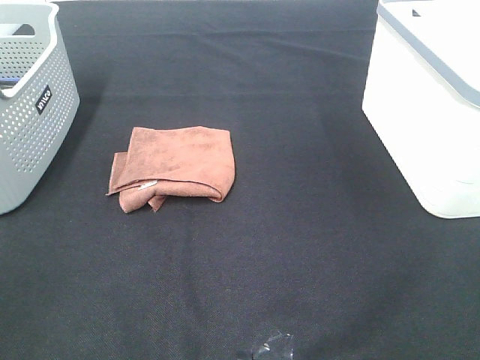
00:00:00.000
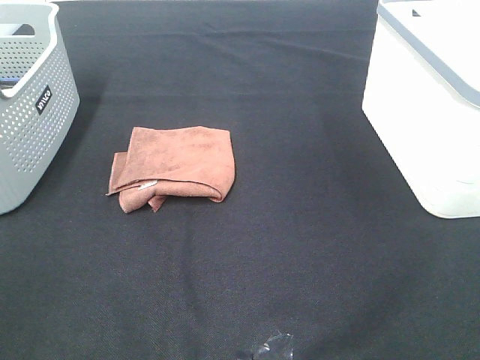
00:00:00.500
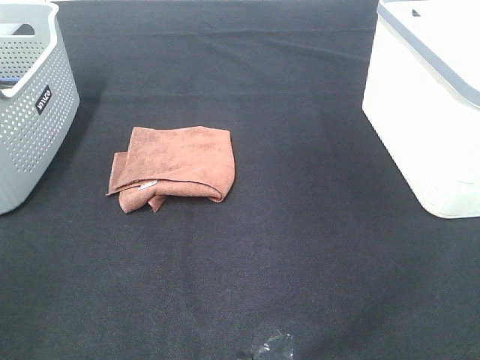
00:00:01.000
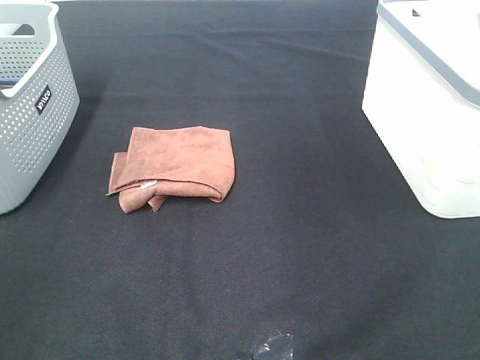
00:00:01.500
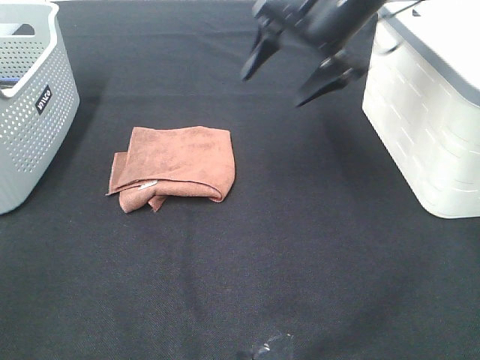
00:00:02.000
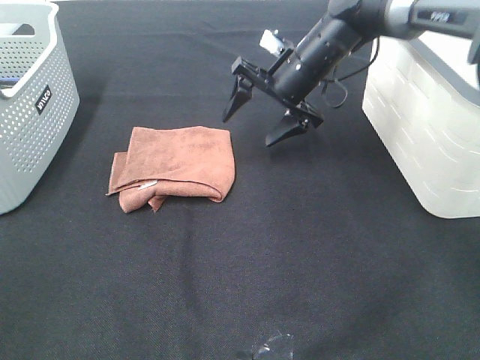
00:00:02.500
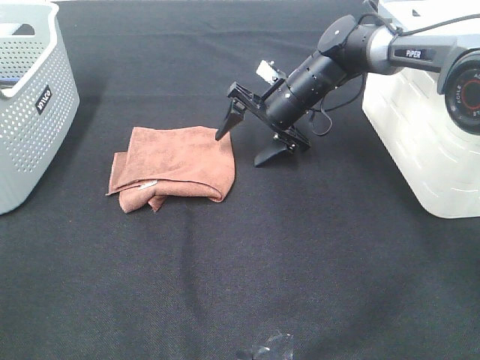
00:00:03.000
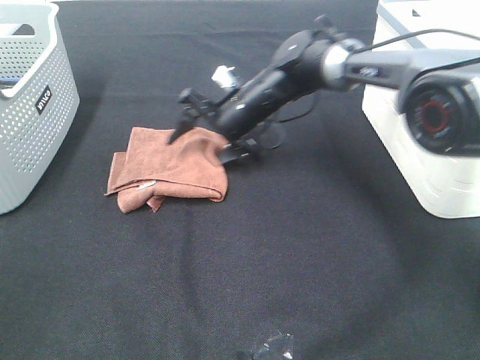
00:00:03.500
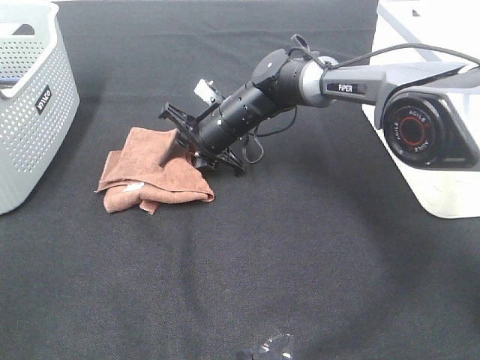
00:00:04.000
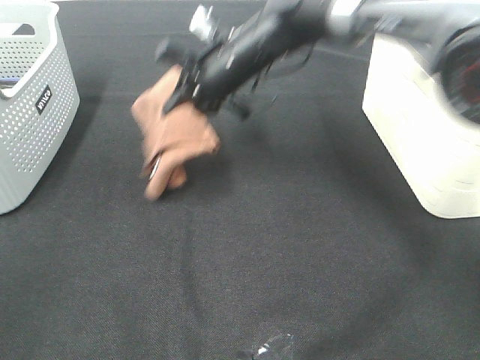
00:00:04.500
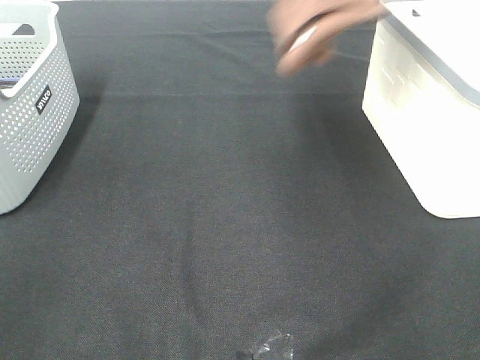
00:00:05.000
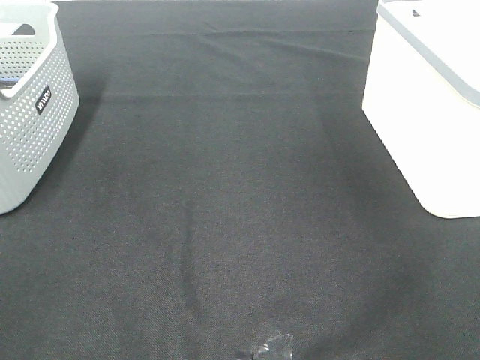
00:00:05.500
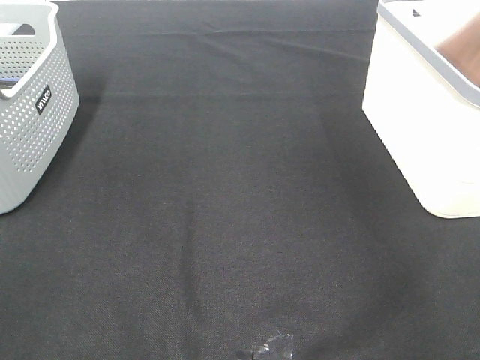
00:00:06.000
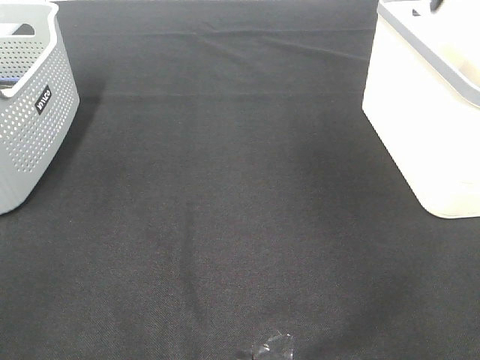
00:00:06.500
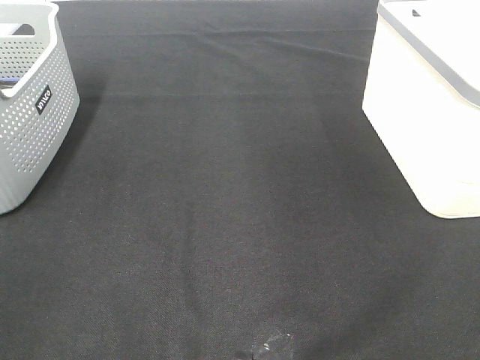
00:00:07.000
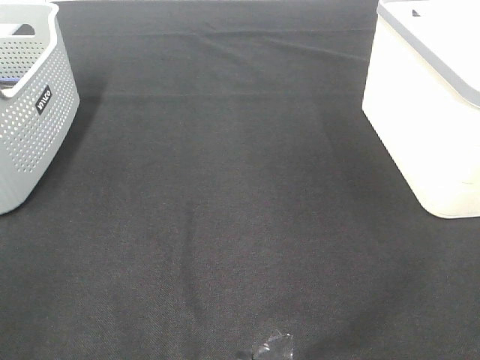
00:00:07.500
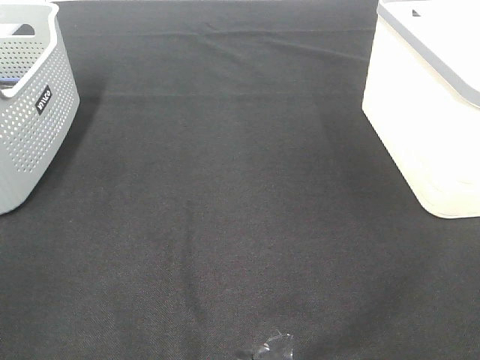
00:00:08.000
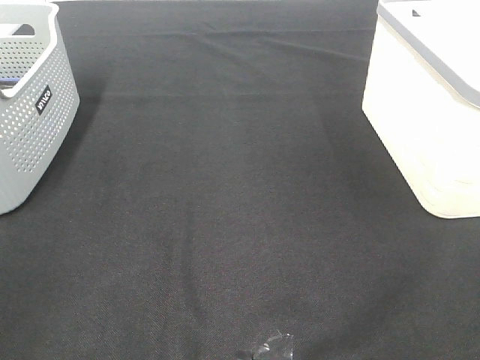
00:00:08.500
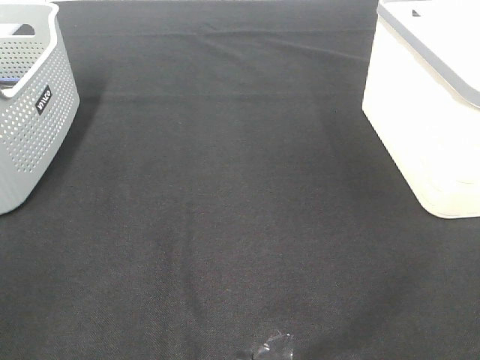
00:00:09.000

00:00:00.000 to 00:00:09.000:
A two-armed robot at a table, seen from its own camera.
Step, 00:00:00.000 to 00:00:04.000: Right hand: grab the folded brown towel.
Step, 00:00:04.500 to 00:00:06.000: Right hand: place the brown towel in right basket.
00:00:00.000 to 00:00:02.000: The right gripper moves forward and to the left, approximately 50 cm.
00:00:02.000 to 00:00:04.500: The right gripper heads to the left, covering approximately 10 cm, moves approximately 20 cm downward and comes back, and closes.
00:00:04.500 to 00:00:07.000: The right gripper is displaced to the right, upward and backward by approximately 35 cm, and opens its fingers.

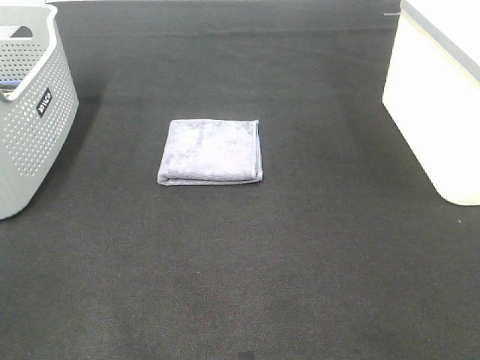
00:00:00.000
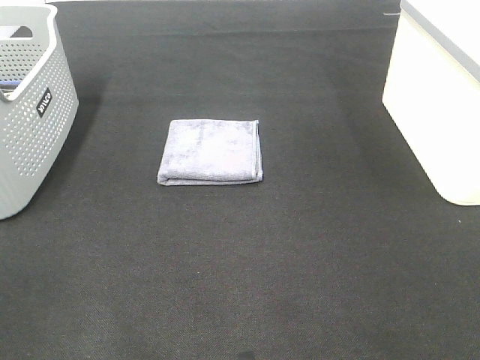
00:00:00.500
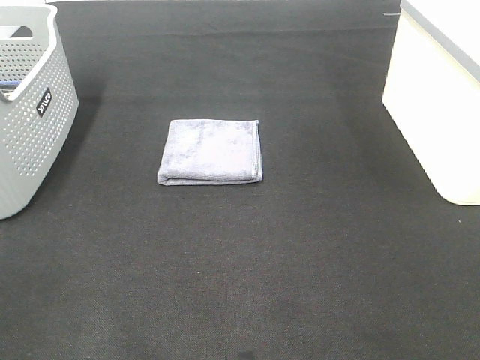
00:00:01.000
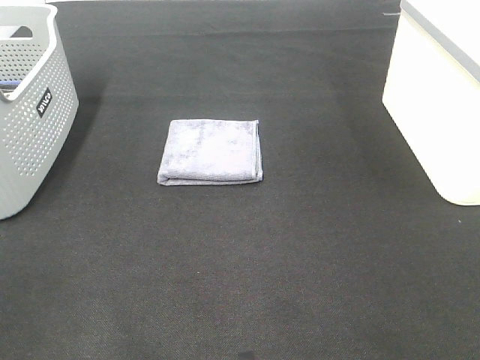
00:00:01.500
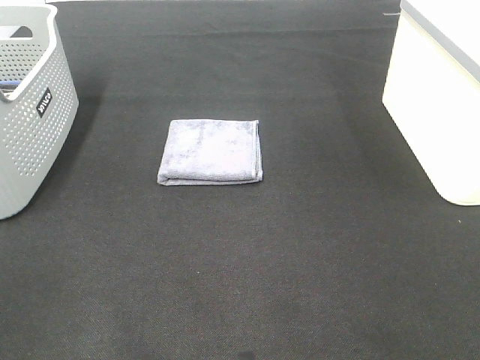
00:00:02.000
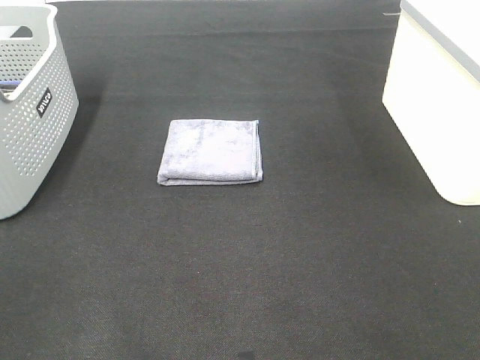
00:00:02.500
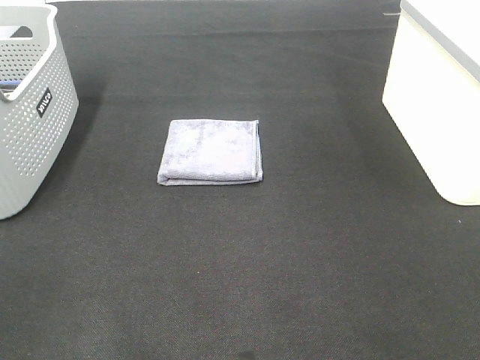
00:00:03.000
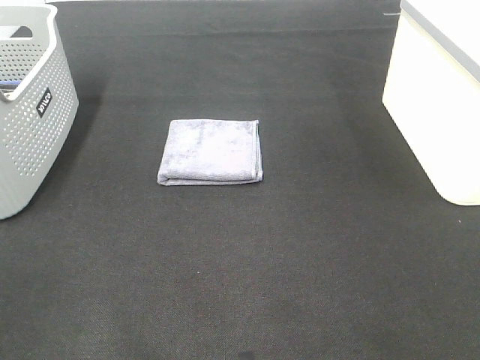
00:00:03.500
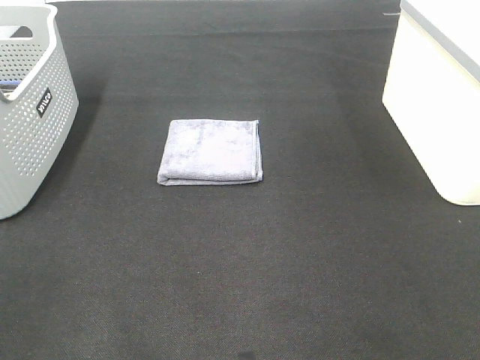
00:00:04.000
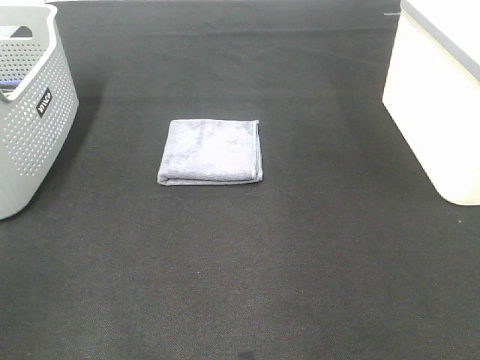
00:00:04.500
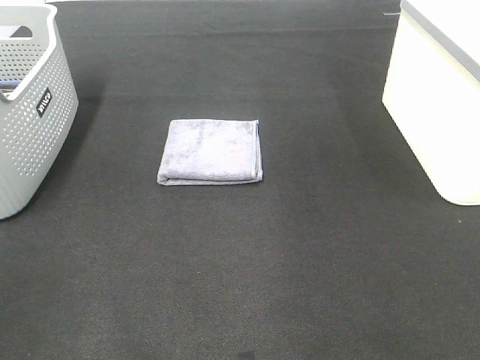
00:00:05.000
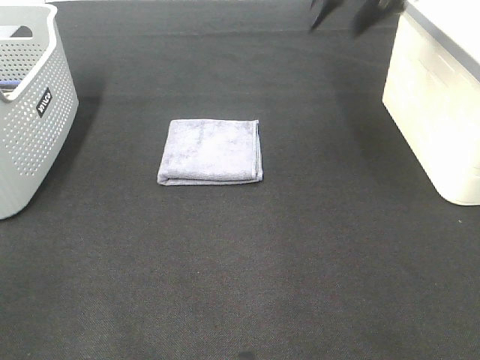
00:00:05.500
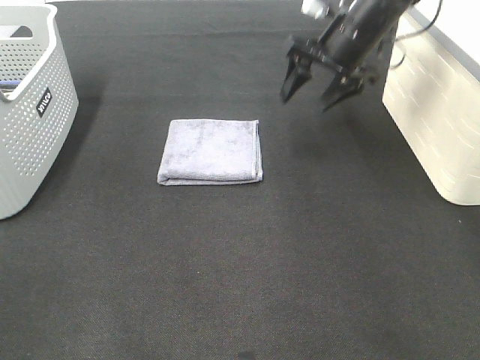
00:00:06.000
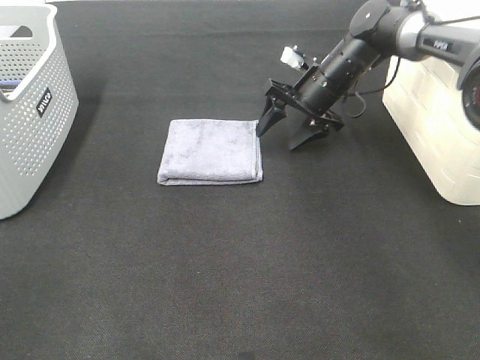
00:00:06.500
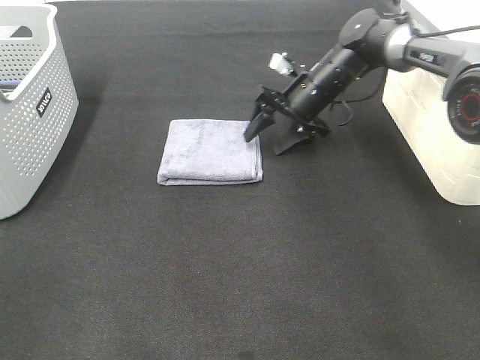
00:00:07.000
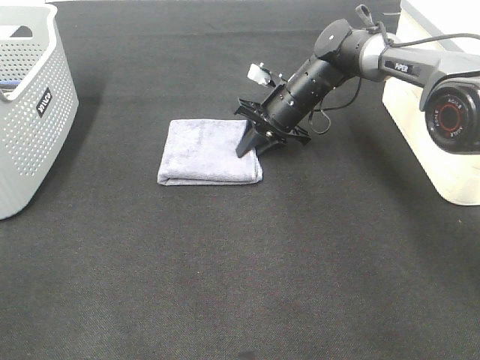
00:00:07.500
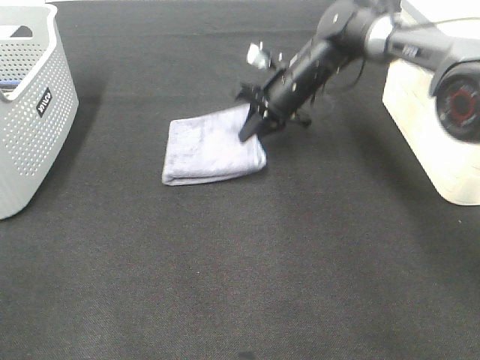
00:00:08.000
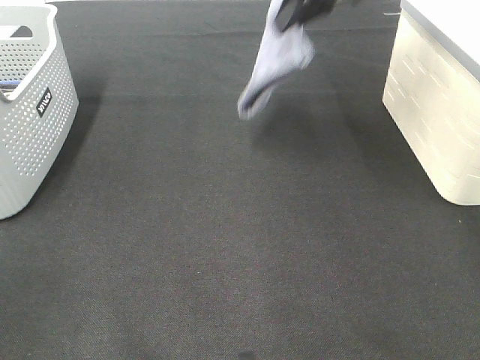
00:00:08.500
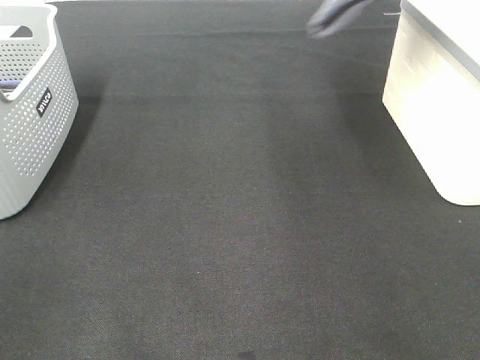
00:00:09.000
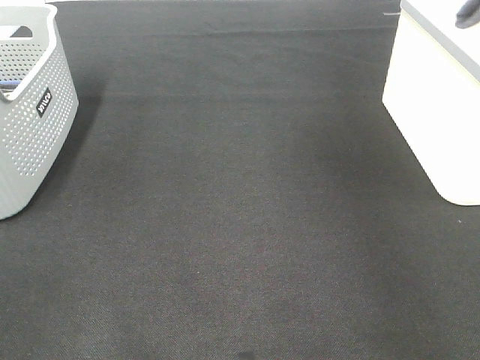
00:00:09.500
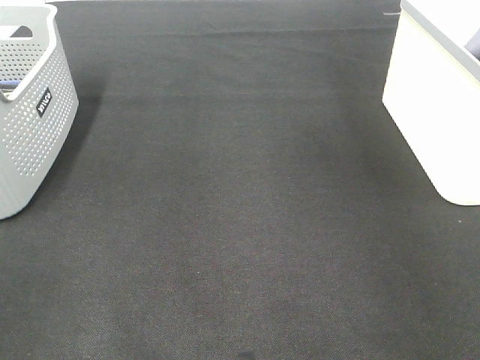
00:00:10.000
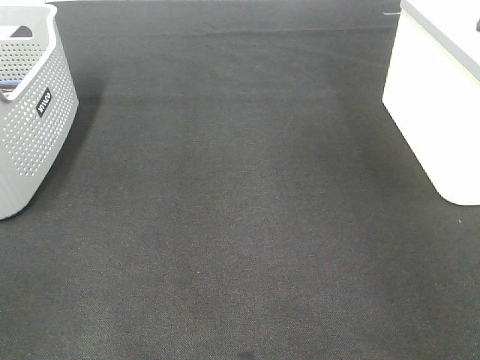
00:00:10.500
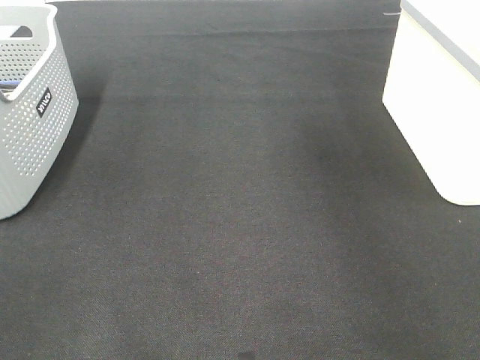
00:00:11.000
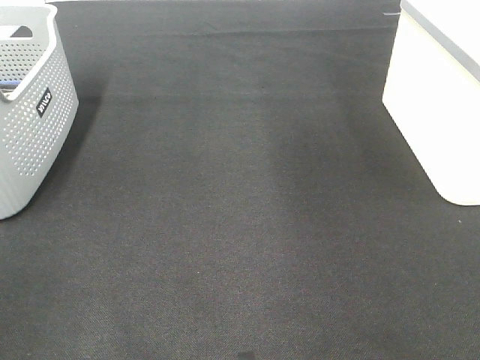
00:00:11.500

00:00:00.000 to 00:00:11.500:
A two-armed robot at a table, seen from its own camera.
Step, 00:00:00.000 to 00:00:07.500: Right hand: grab the folded grey towel.
Step, 00:00:08.000 to 00:00:10.000: Right hand: place the grey towel in right basket.
00:00:00.000 to 00:00:02.000: Neither gripper changes place.
00:00:04.000 to 00:00:06.000: The right gripper is displaced forward by about 40 cm.
00:00:06.000 to 00:00:07.500: The right gripper goes roughly 15 cm downward and to the left, and closes up.
00:00:07.500 to 00:00:09.500: The right gripper shifts roughly 40 cm upward and to the right.

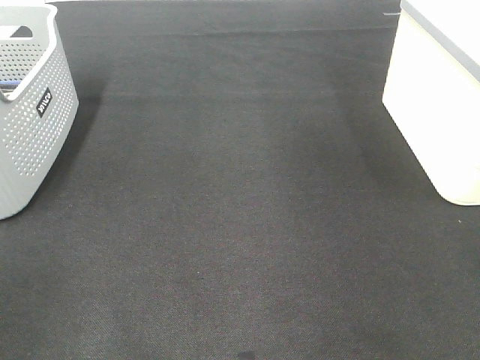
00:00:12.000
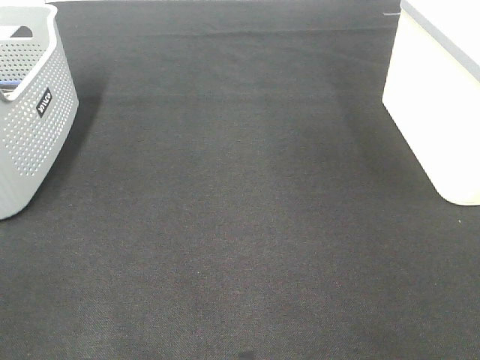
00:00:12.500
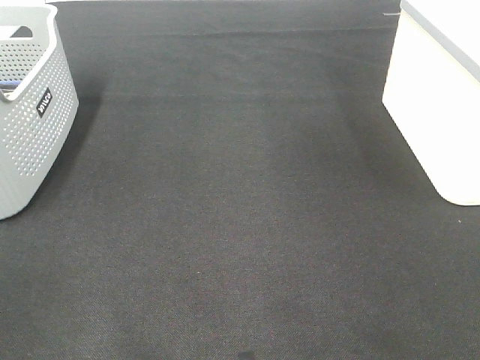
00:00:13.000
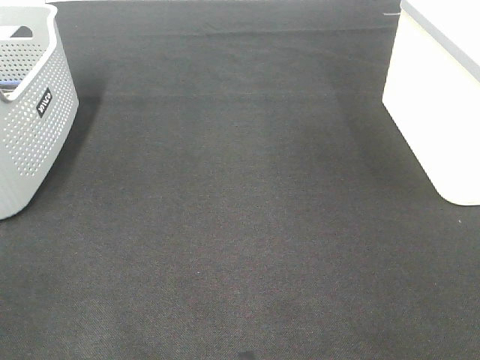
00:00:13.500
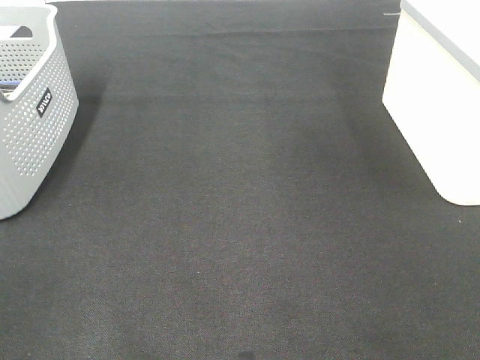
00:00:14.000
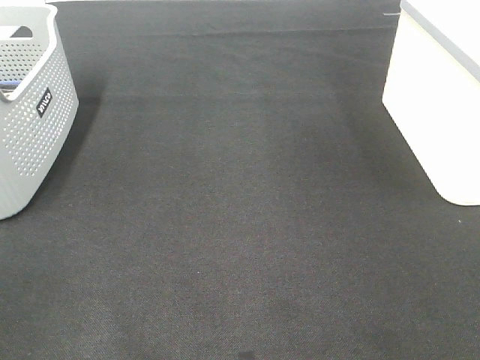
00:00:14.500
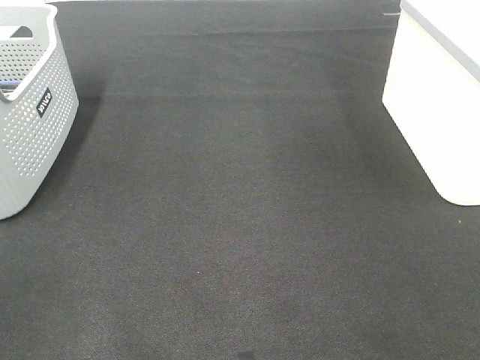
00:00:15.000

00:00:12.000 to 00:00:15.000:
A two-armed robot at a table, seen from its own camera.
00:00:13.500 to 00:00:15.000: Neither gripper changes place.
